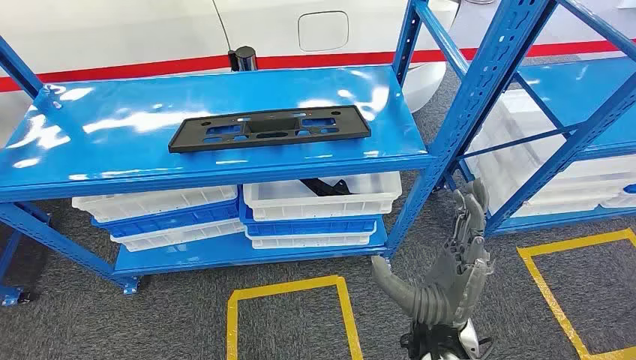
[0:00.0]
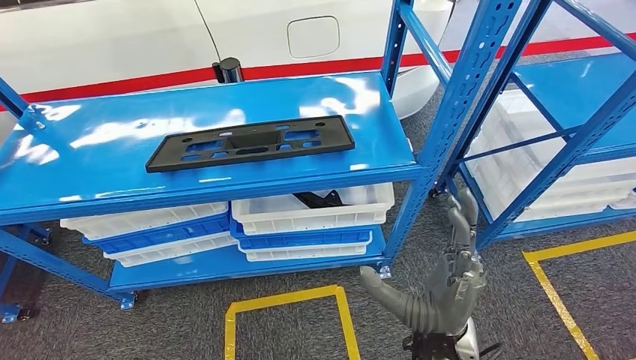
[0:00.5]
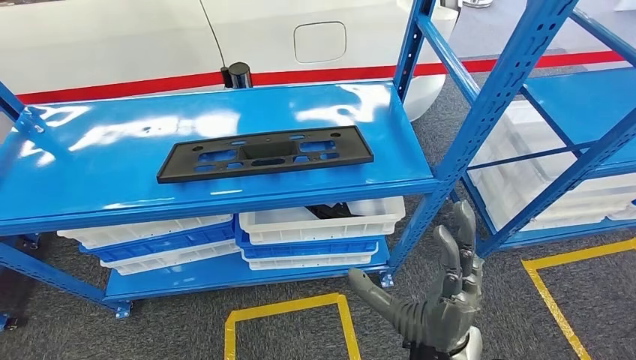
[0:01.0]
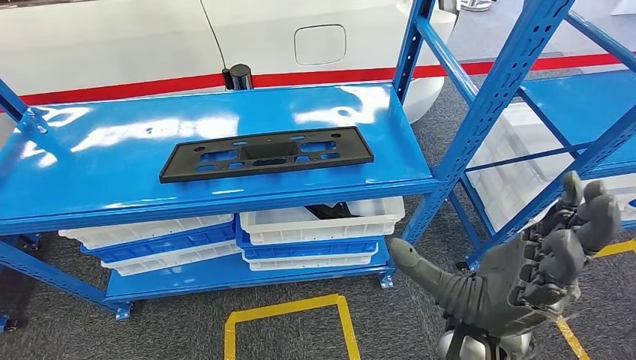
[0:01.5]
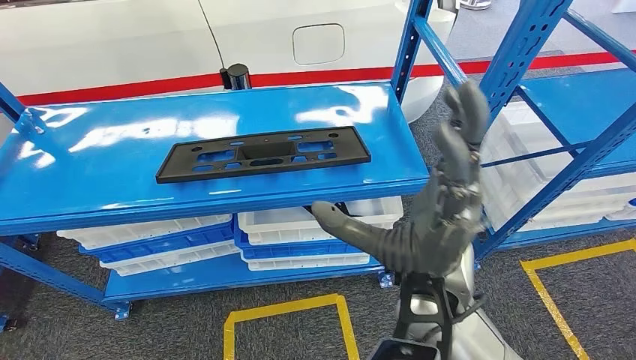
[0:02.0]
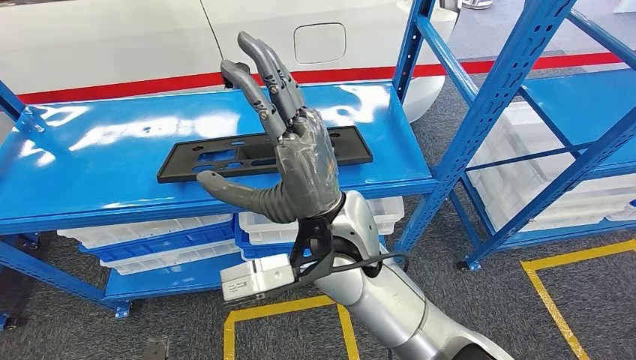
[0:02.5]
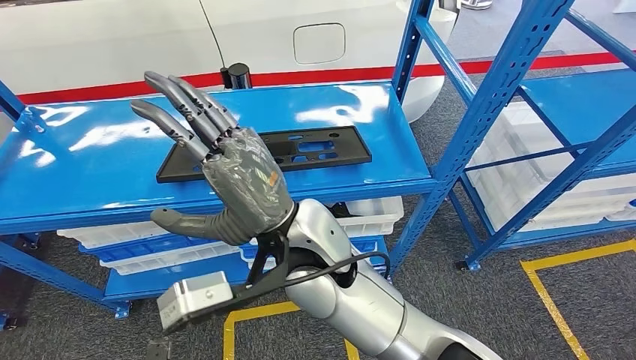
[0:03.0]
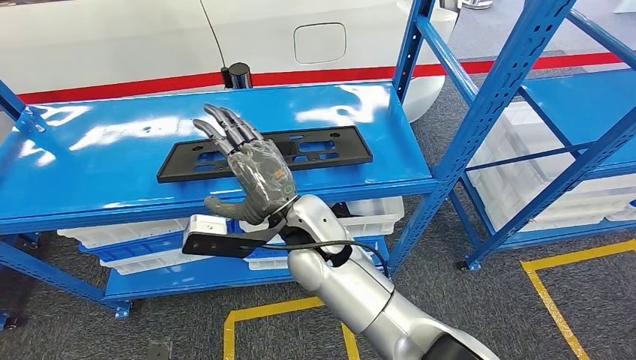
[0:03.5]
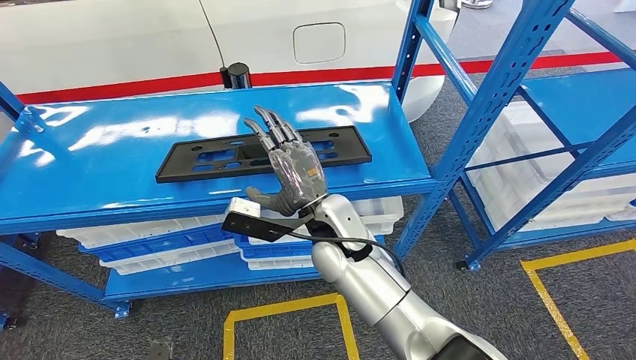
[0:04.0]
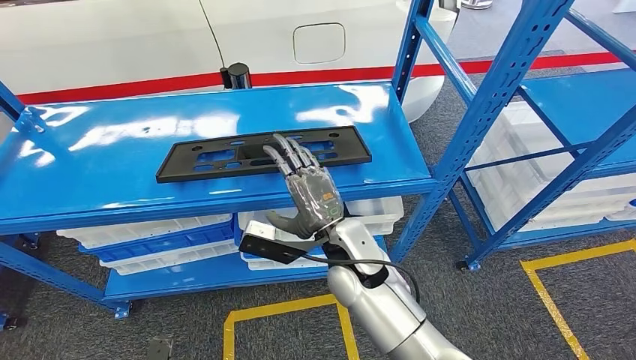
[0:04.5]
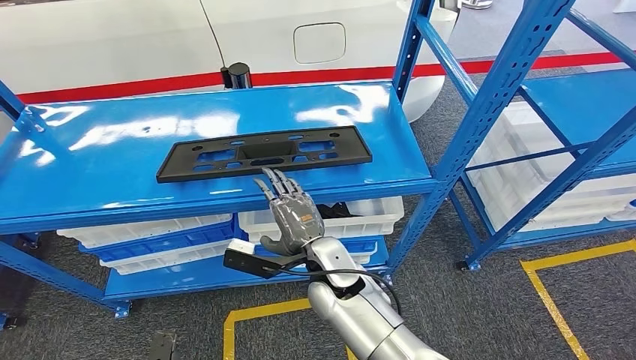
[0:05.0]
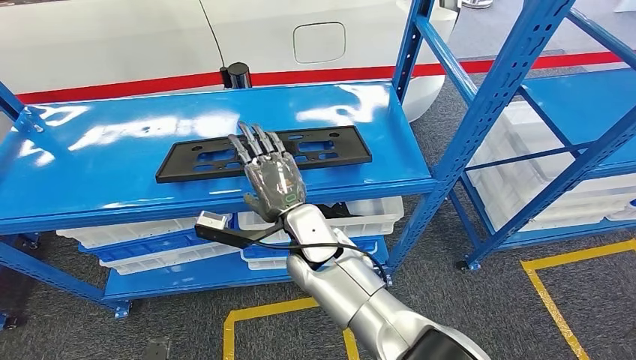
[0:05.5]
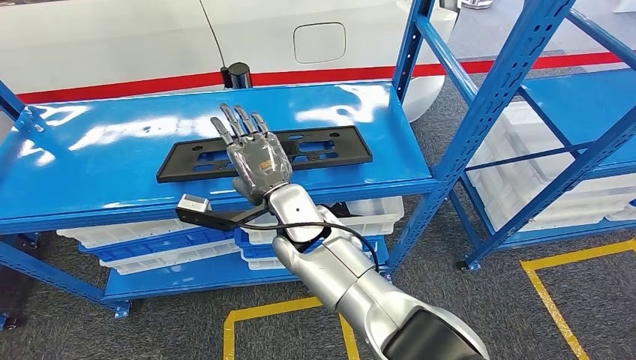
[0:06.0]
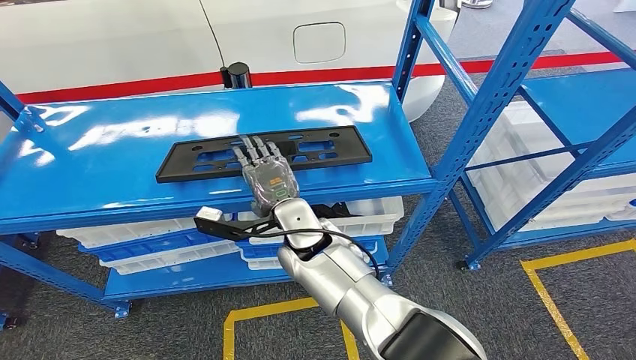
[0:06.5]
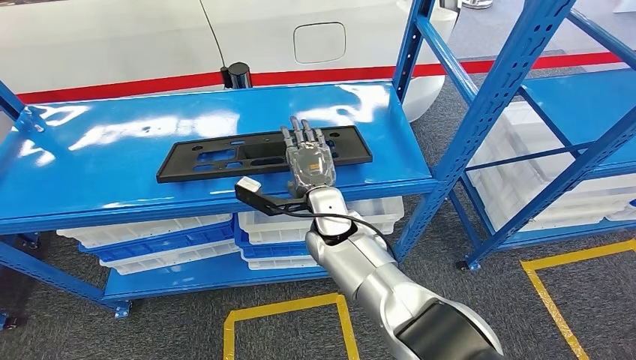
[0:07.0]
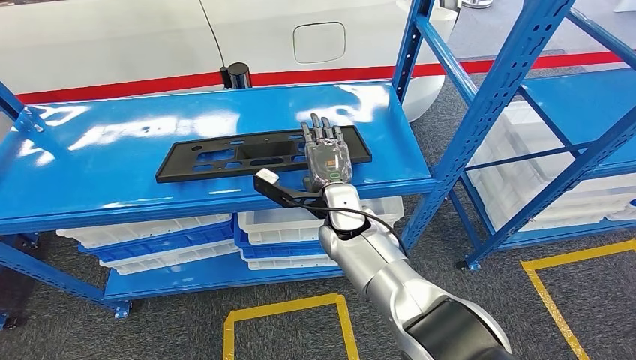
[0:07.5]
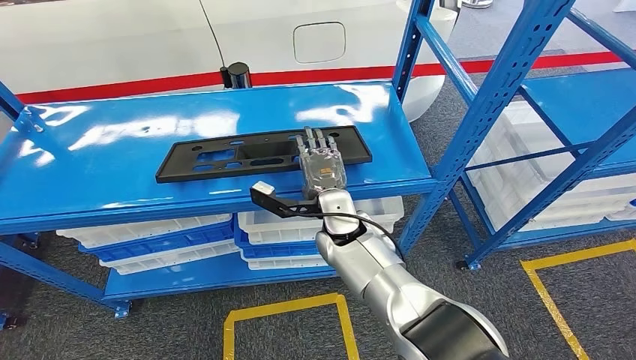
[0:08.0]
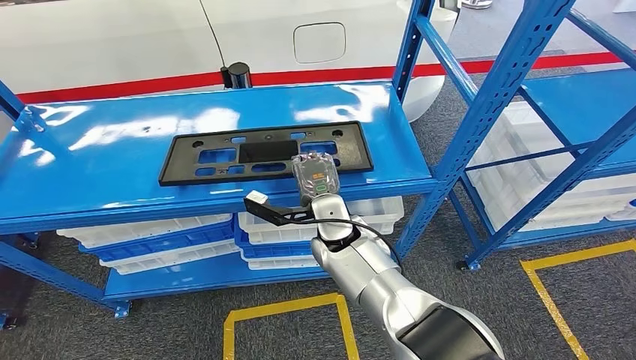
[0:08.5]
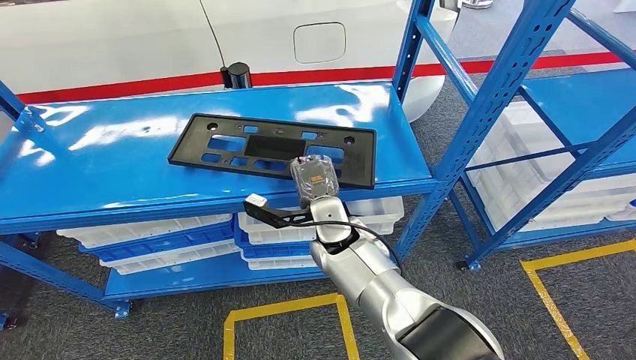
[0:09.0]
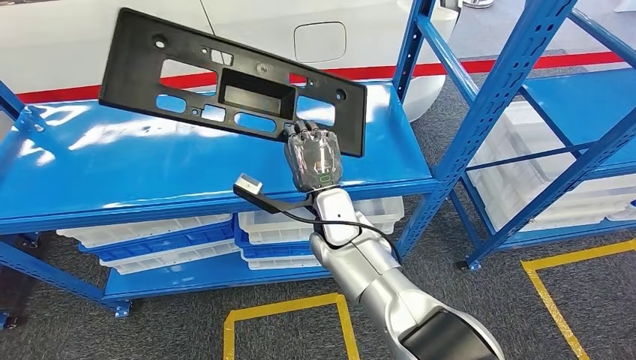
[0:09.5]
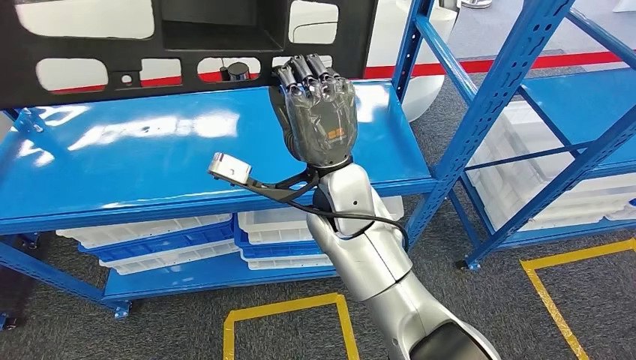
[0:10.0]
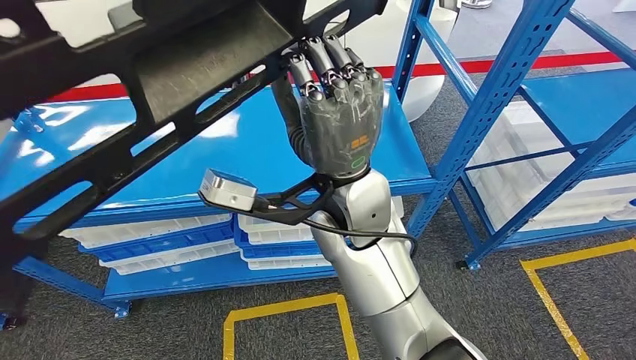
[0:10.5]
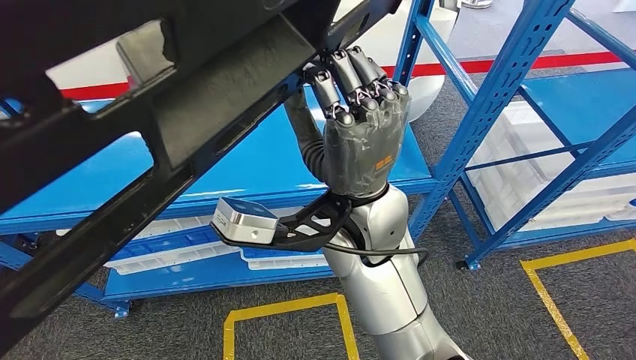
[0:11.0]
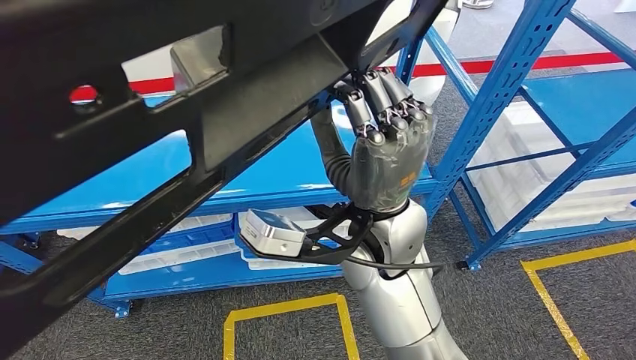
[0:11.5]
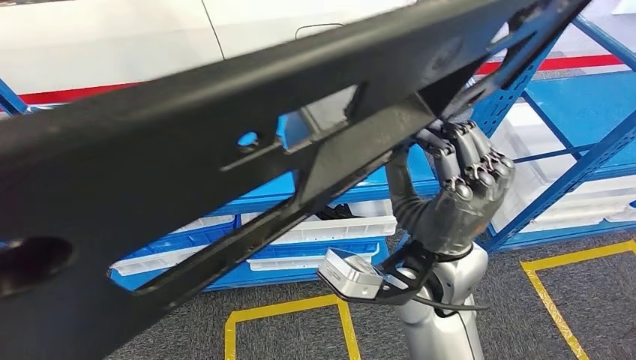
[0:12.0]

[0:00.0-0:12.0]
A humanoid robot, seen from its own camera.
0:02.0 to 0:04.0: The right hand heads downward, forward and to the left, covering approximately 15 cm.
0:04.0 to 0:06.0: The right hand shifts about 5 cm to the left, and moves some 5 cm downward and comes back.
0:06.0 to 0:08.0: The right hand shifts about 10 cm to the right and downward.

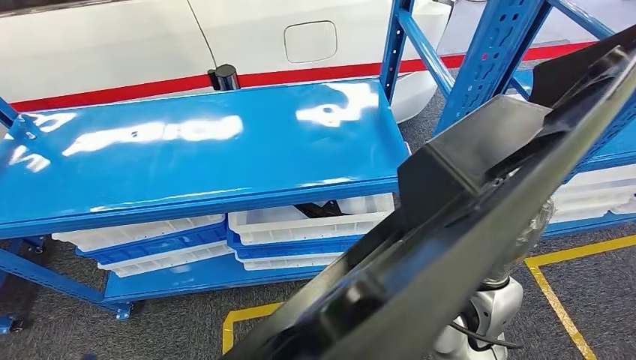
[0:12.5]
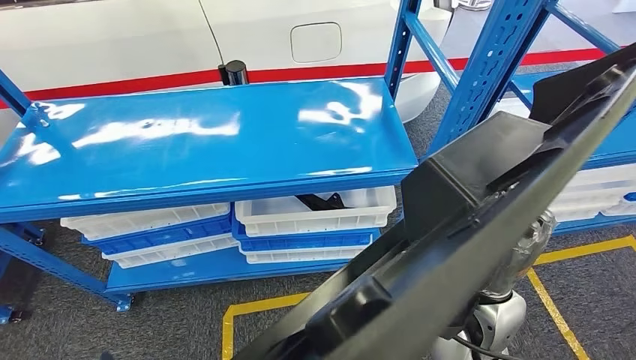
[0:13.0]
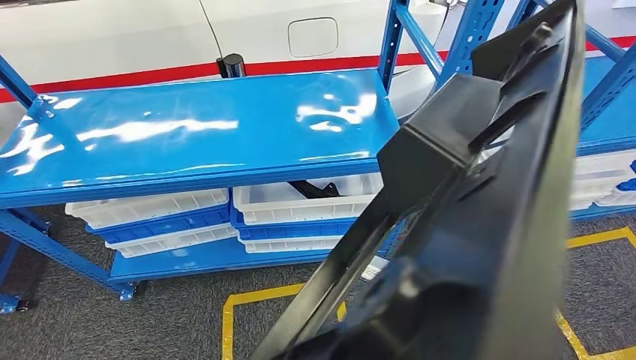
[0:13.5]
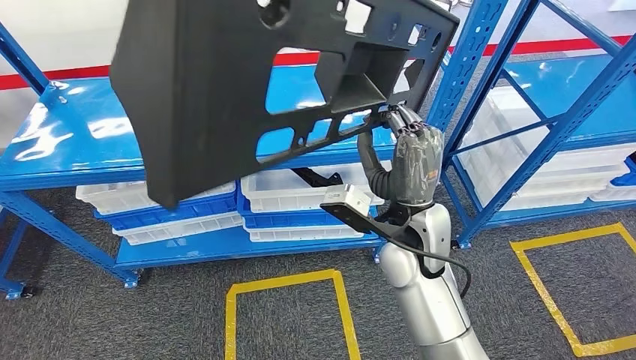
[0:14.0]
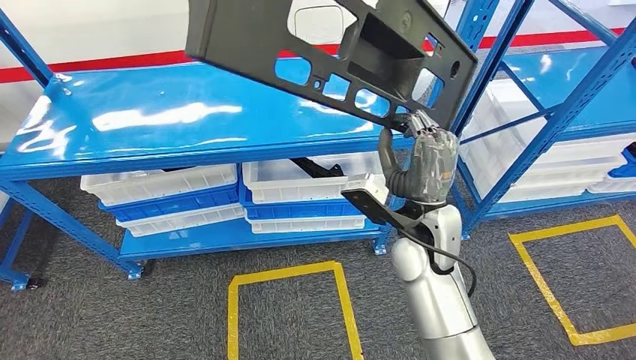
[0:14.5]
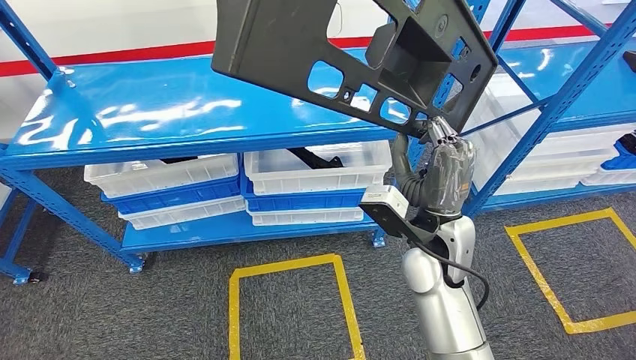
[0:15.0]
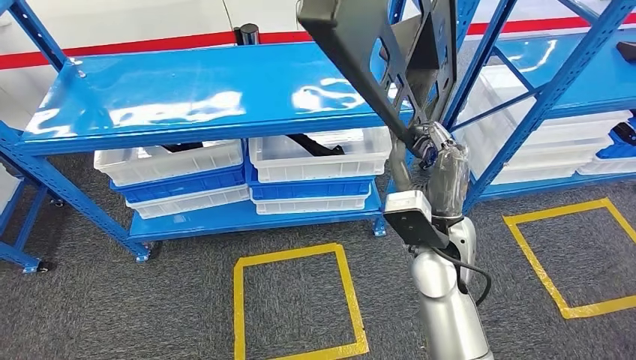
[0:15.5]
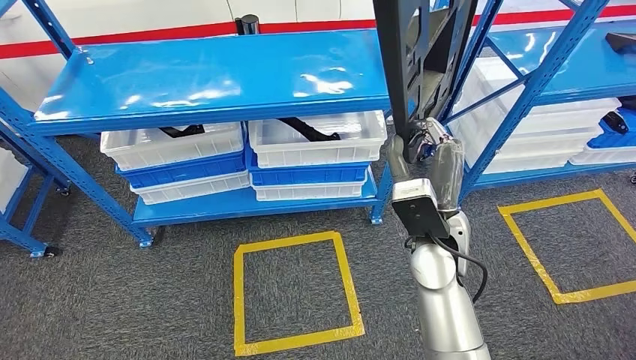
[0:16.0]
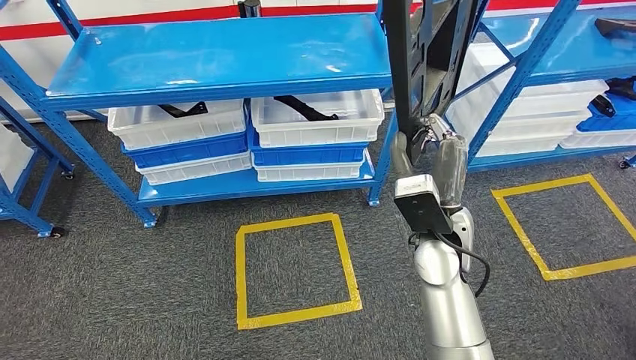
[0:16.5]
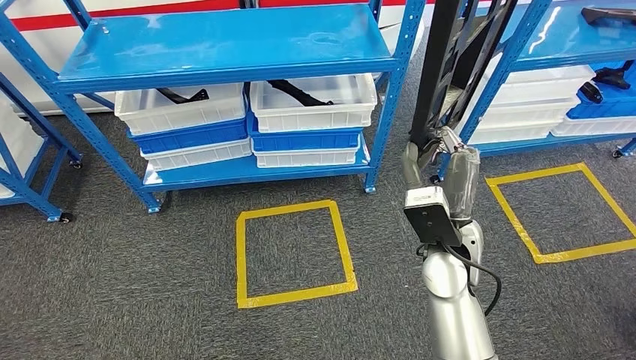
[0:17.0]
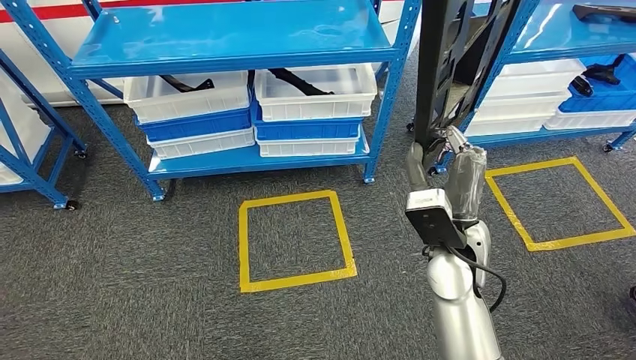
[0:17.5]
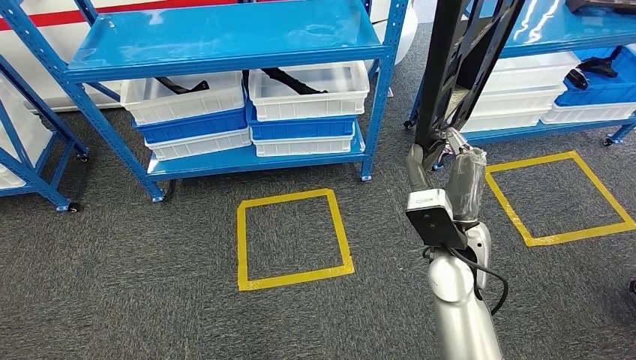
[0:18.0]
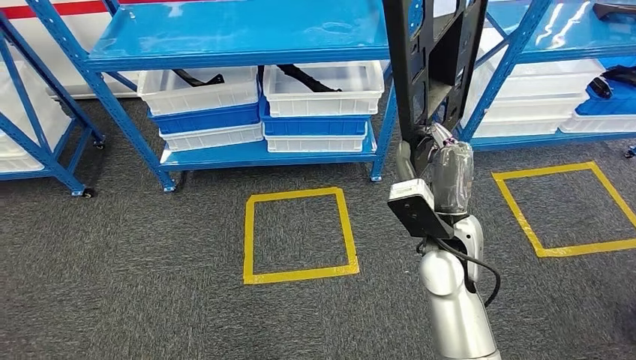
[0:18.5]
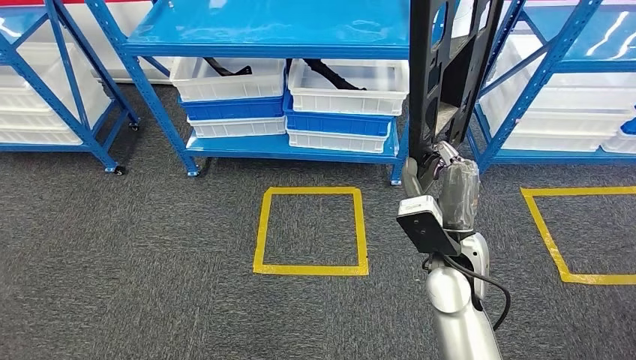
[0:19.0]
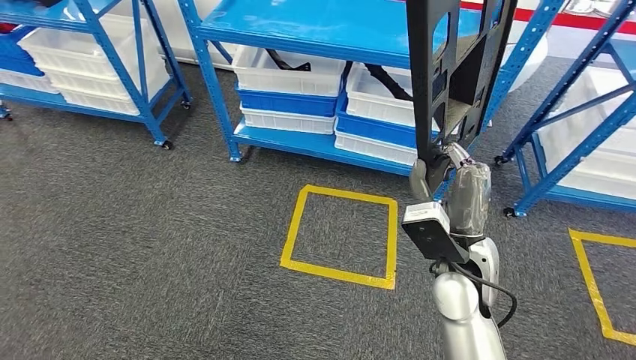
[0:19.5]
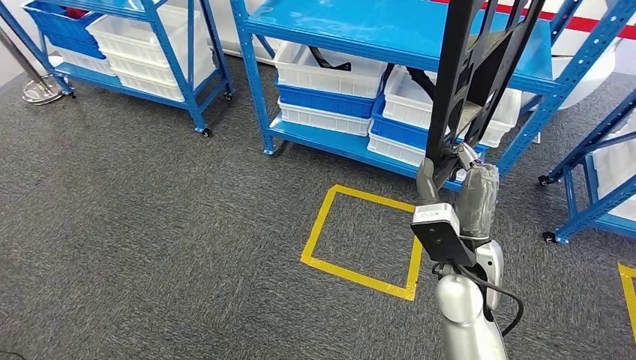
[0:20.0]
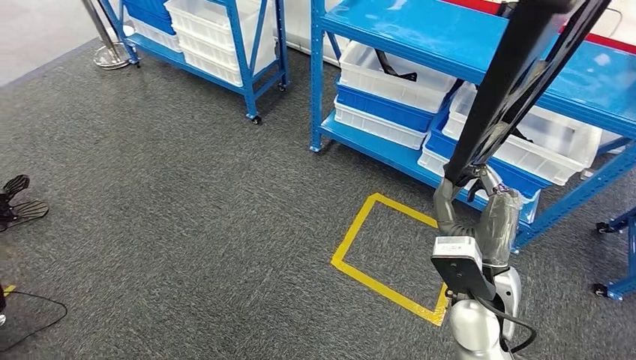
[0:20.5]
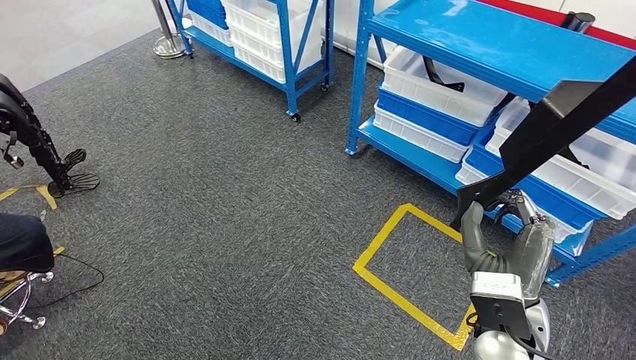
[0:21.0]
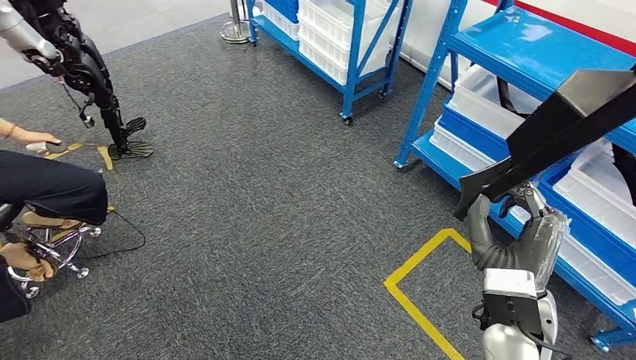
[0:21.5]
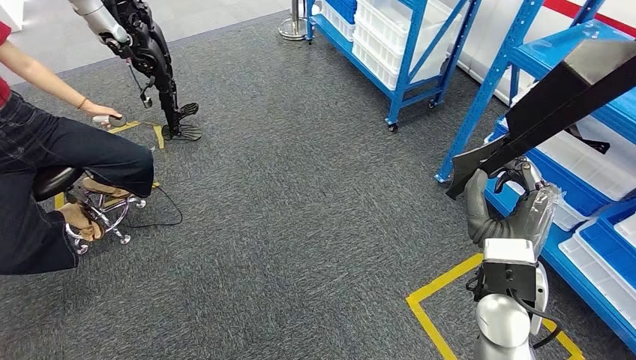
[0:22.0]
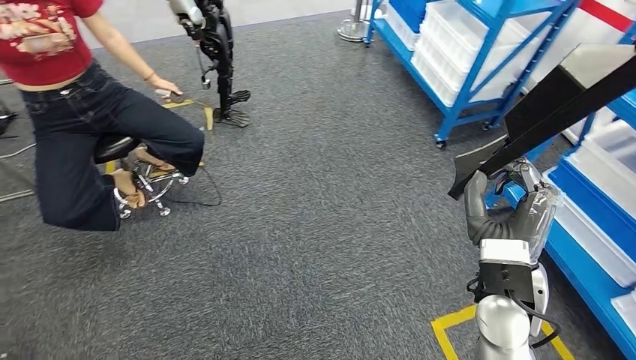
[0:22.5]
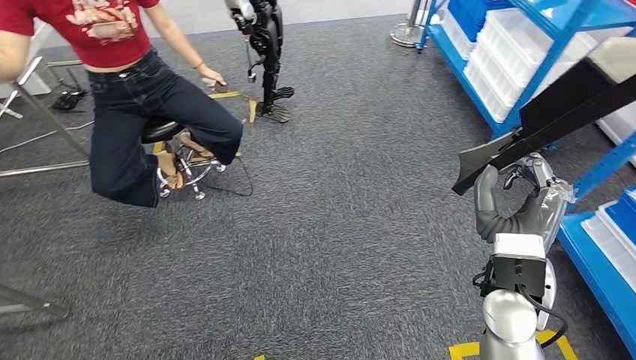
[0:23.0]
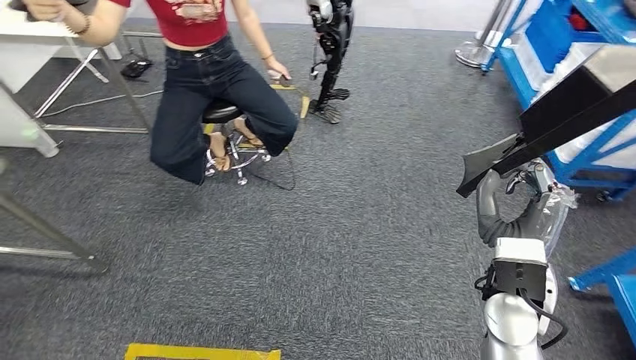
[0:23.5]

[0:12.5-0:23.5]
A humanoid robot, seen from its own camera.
Step, 0:12.5 to 0:14.5: Pick up the large material from the shelf.
